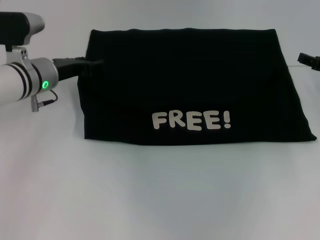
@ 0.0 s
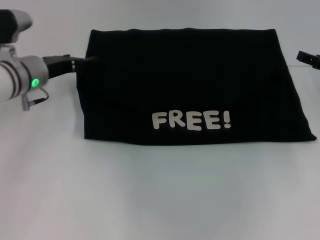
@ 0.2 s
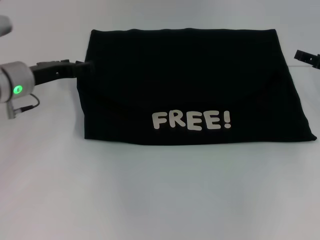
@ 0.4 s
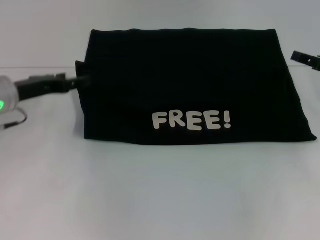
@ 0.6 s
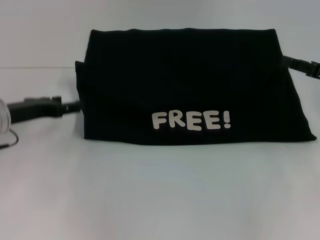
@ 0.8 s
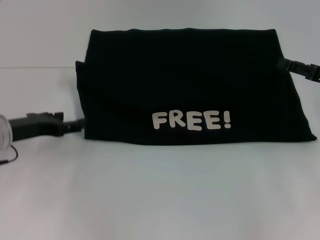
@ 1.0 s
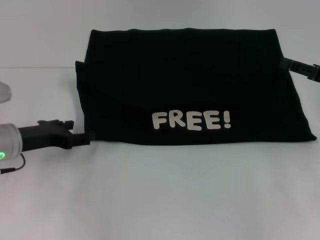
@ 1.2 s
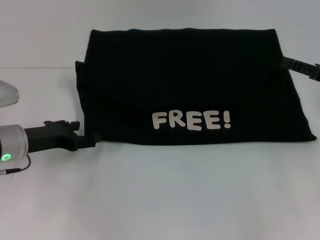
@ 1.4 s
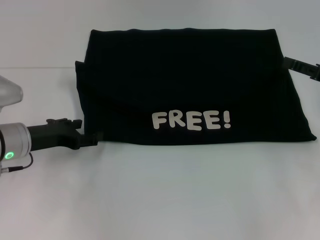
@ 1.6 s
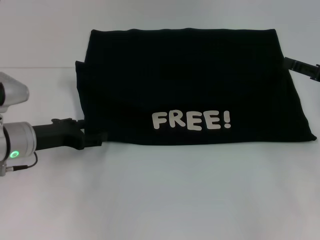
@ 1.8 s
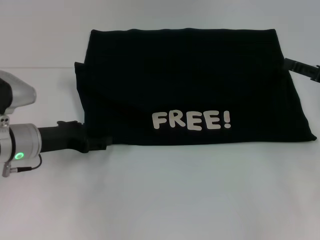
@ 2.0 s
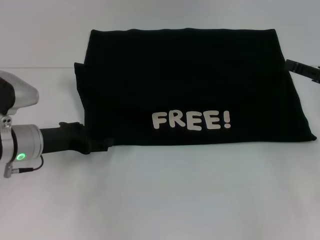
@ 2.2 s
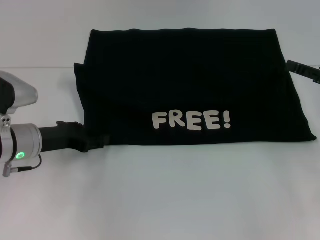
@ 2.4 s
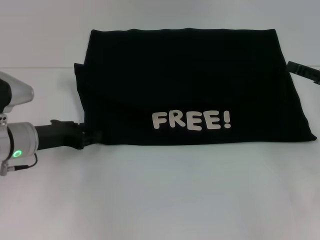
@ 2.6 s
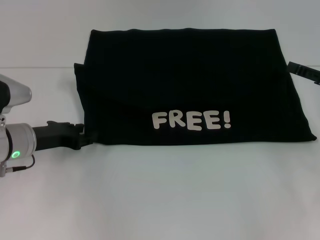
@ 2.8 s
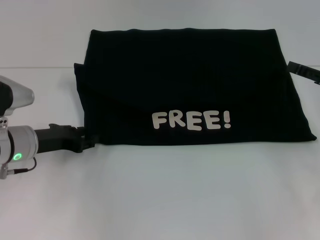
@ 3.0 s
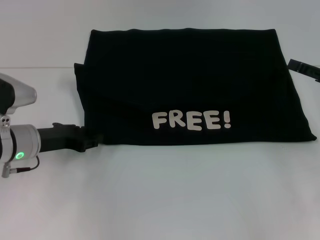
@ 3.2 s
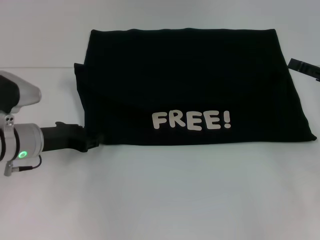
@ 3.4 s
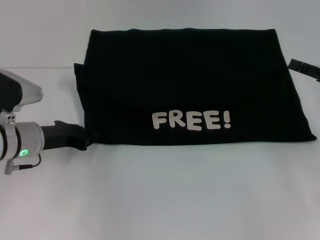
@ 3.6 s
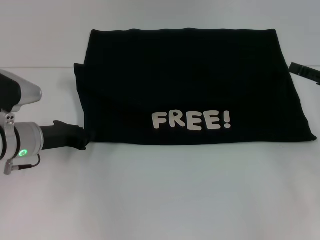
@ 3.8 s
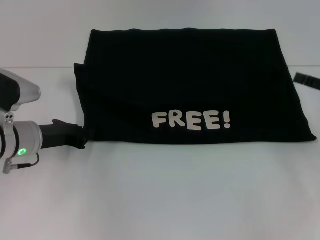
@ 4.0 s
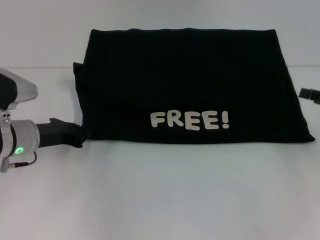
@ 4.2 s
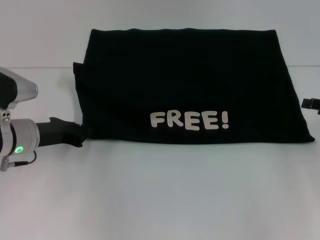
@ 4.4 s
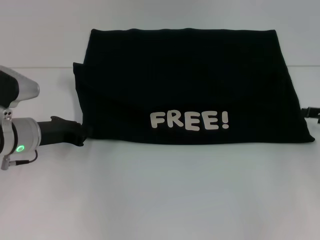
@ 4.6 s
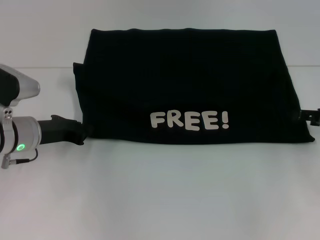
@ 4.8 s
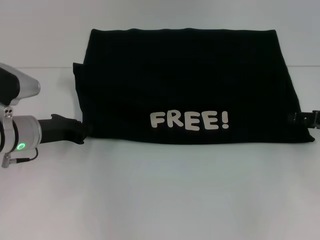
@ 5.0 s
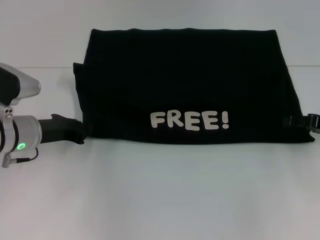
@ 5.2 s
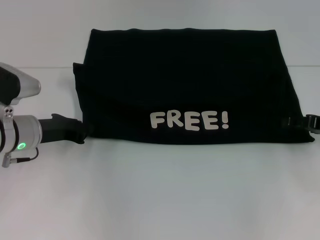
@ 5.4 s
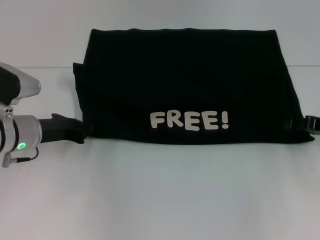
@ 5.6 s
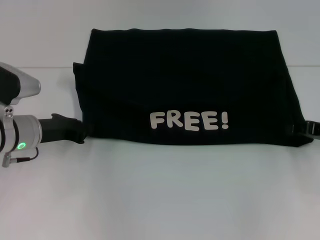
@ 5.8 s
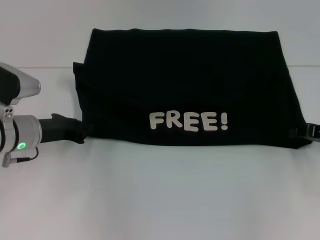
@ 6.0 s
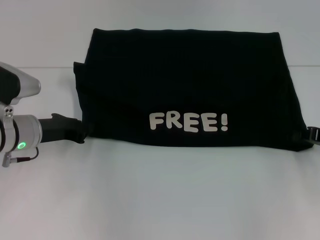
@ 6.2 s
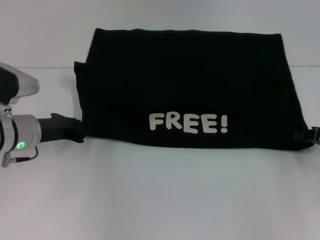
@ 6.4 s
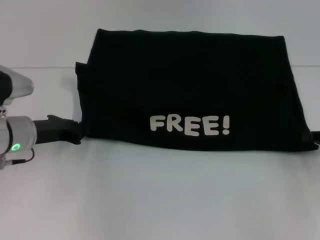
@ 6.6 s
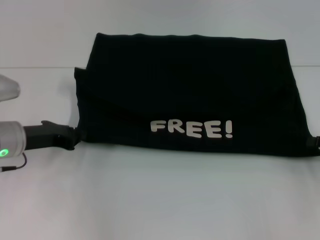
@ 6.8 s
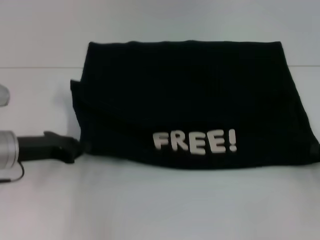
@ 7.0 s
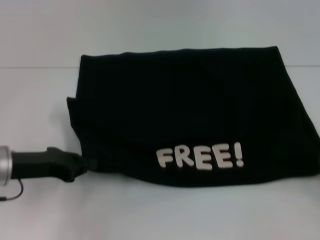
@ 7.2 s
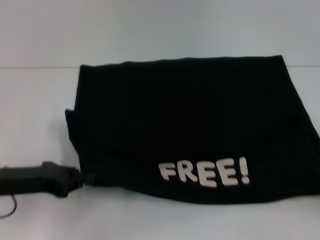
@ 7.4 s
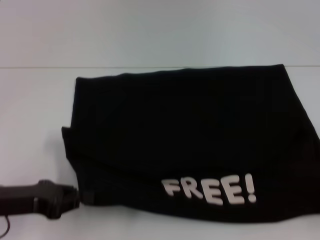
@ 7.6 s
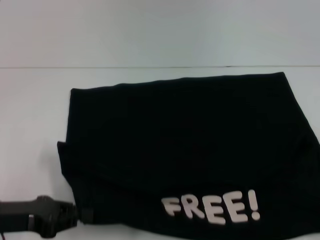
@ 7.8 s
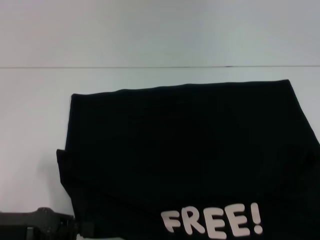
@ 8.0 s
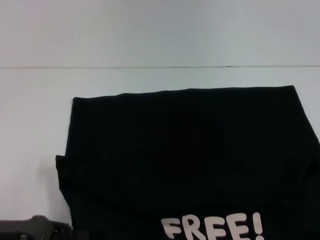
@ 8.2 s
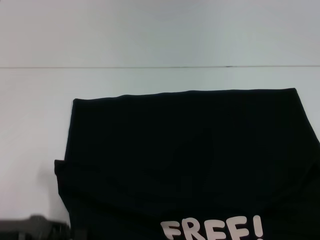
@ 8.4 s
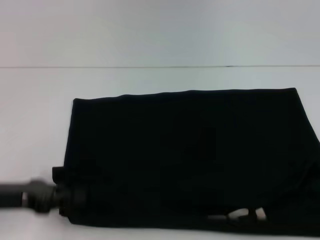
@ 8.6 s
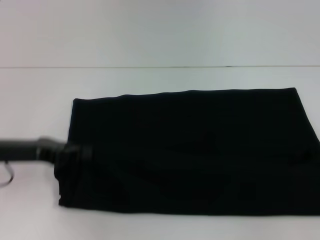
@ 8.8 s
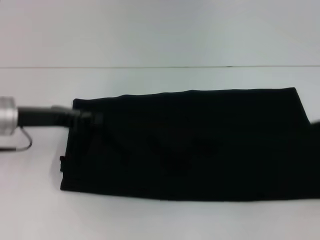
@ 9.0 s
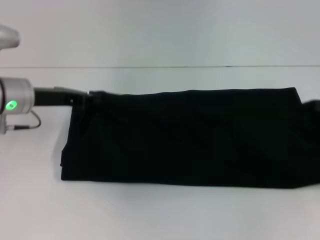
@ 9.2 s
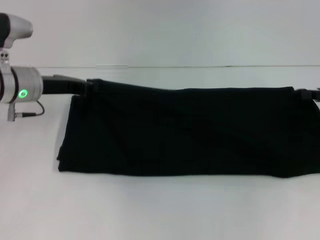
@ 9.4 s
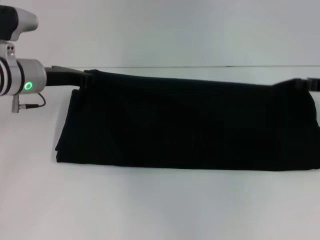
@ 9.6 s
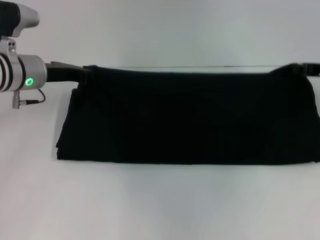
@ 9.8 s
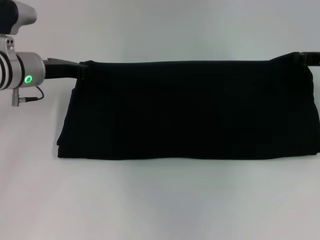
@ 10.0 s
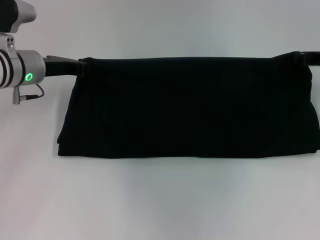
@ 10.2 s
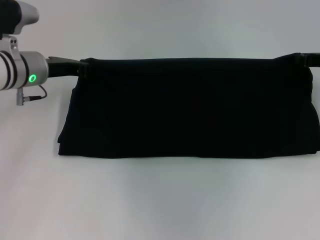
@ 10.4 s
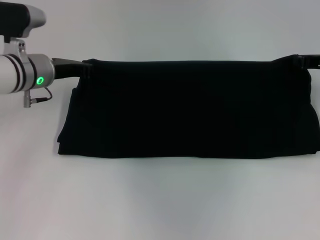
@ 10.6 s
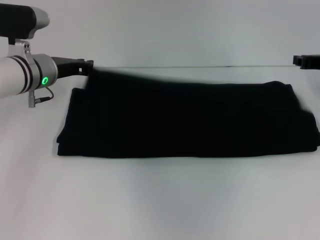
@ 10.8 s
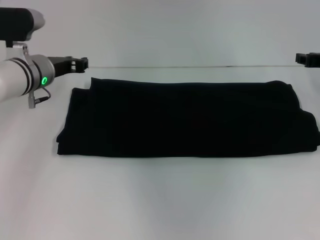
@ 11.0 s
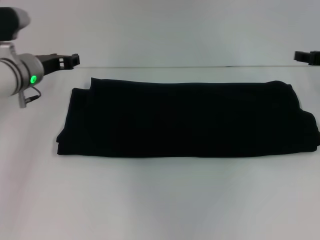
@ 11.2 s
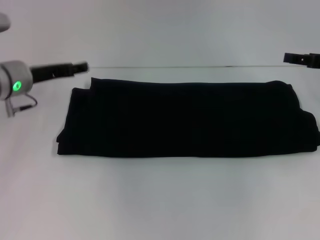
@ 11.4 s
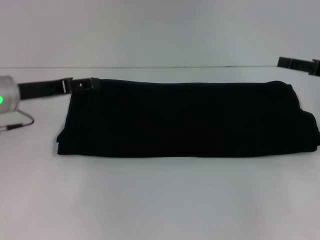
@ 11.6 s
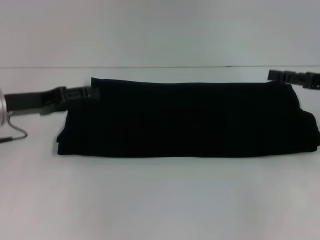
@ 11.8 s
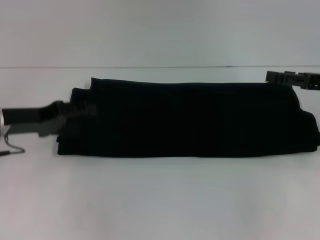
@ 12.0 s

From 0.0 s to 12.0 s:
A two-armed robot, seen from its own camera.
Step, from 0.2 s to 8.0 s: Pull the clothes with your left hand.
Step, from 0.2 s to 8.0 s: Pull the clothes with your right hand.
Step, from 8.2 s to 10.8 s: Fold the clothes with your right hand.
From 0.0 s to 1.6 s: The left gripper heads backward, covering some 10 cm, and opens up. The right gripper shifts some 5 cm backward.
From 1.6 s to 3.0 s: The left gripper closes.
From 3.0 s to 4.4 s: The left gripper closes its fingers.
From 4.4 s to 6.0 s: The right gripper closes up.
From 6.0 s to 7.6 s: The left gripper heads backward, covering some 10 cm; the right gripper is displaced backward and to the right by some 15 cm.
From 7.6 s to 9.0 s: Both grippers travel together forward, approximately 10 cm.
From 9.0 s to 10.4 s: The left gripper moves forward, approximately 10 cm. The right gripper is displaced forward and to the left by approximately 15 cm.
From 10.4 s to 12.0 s: The left gripper heads backward and to the left, covering some 10 cm, and opens its fingers. The right gripper goes roughly 5 cm backward, and opens its fingers.

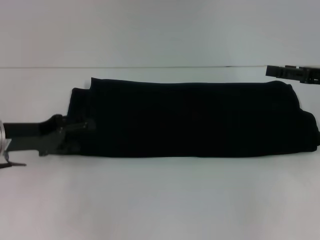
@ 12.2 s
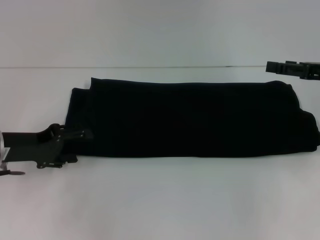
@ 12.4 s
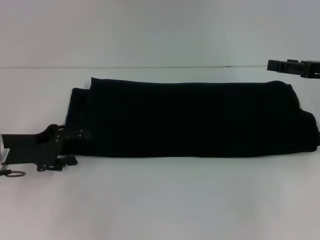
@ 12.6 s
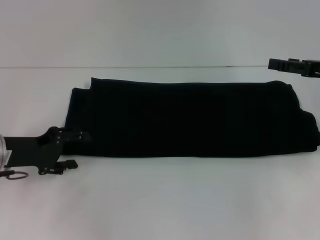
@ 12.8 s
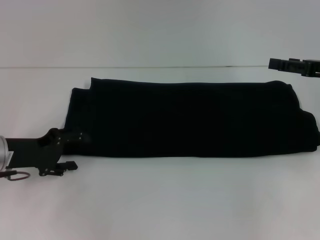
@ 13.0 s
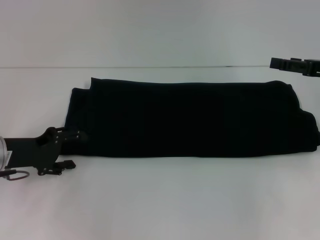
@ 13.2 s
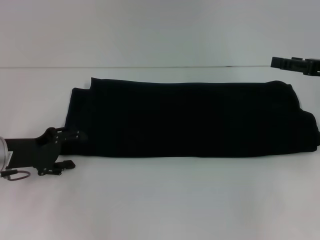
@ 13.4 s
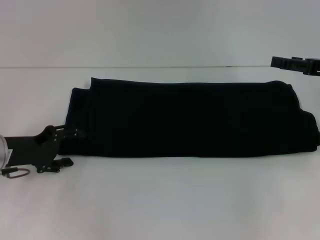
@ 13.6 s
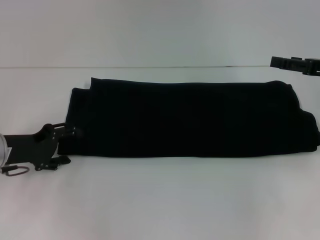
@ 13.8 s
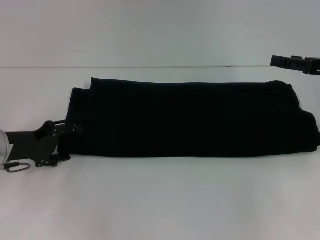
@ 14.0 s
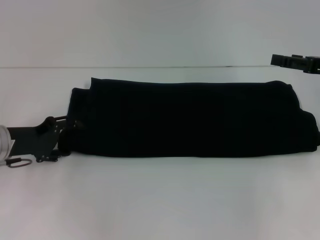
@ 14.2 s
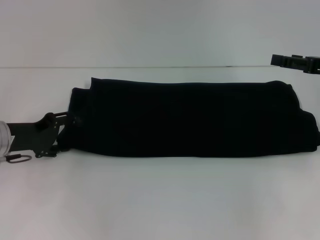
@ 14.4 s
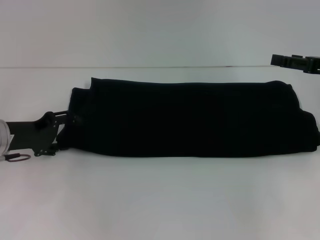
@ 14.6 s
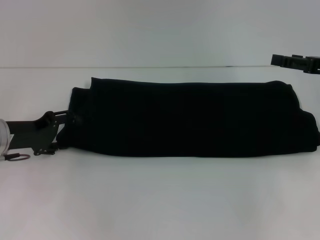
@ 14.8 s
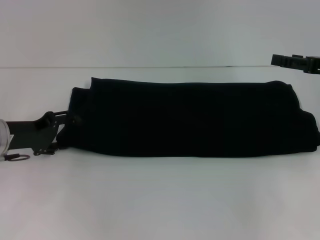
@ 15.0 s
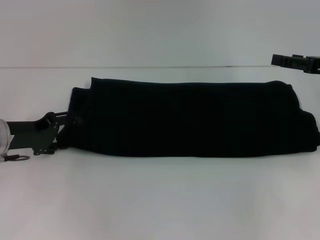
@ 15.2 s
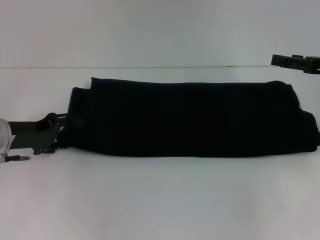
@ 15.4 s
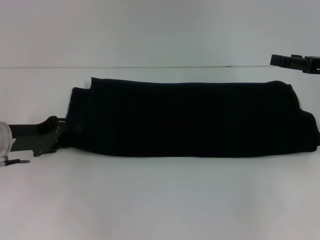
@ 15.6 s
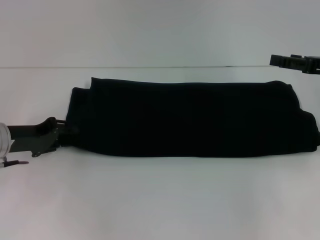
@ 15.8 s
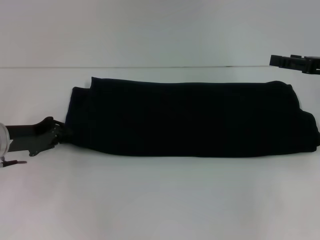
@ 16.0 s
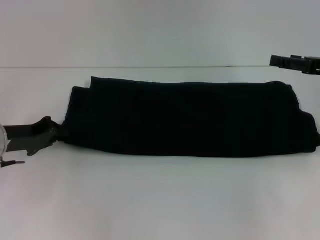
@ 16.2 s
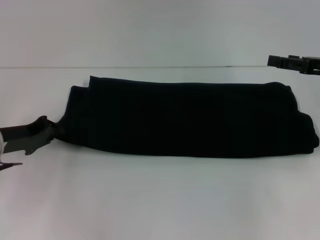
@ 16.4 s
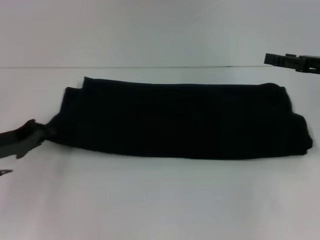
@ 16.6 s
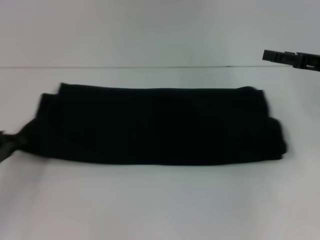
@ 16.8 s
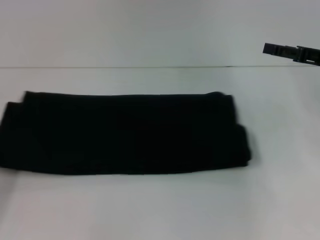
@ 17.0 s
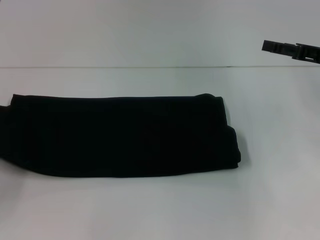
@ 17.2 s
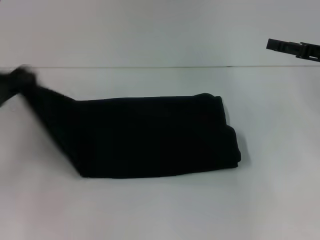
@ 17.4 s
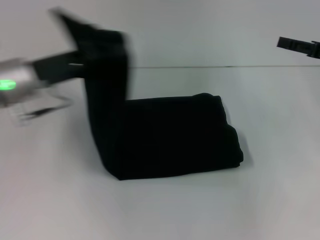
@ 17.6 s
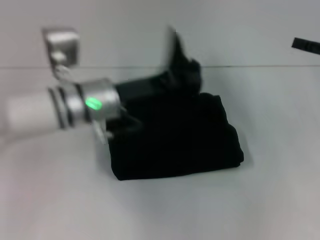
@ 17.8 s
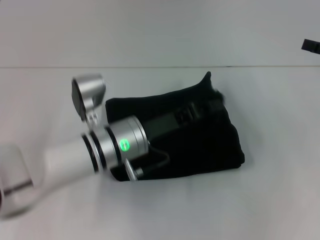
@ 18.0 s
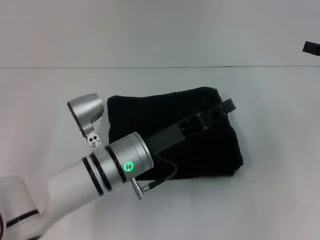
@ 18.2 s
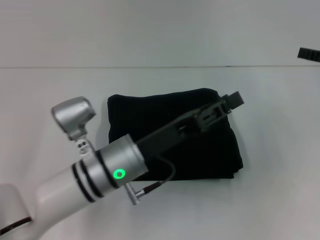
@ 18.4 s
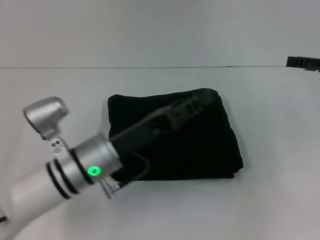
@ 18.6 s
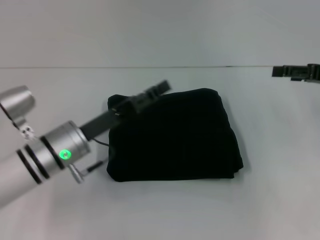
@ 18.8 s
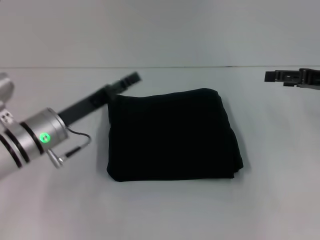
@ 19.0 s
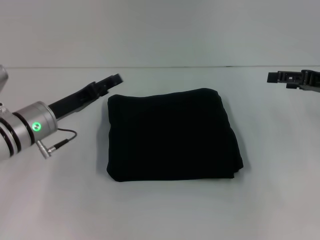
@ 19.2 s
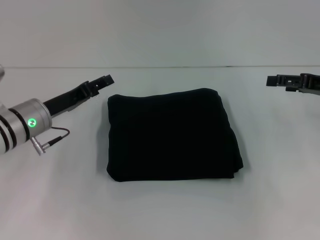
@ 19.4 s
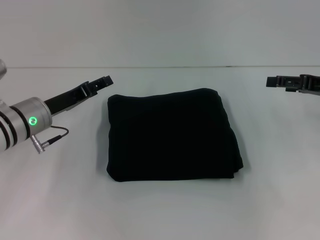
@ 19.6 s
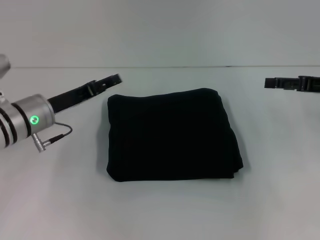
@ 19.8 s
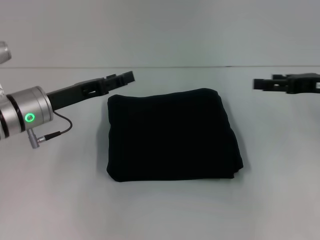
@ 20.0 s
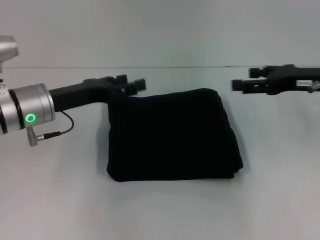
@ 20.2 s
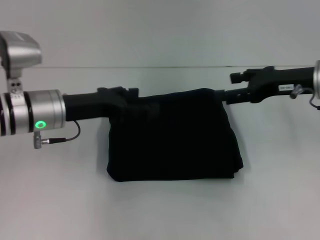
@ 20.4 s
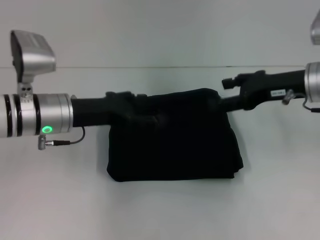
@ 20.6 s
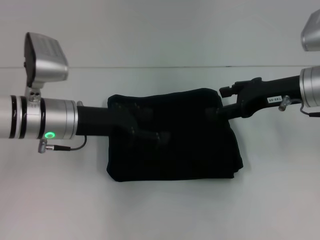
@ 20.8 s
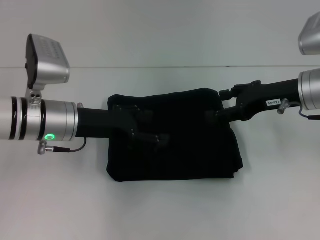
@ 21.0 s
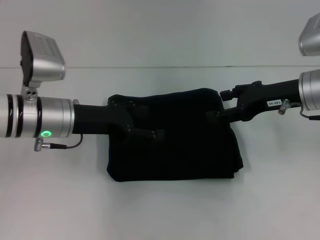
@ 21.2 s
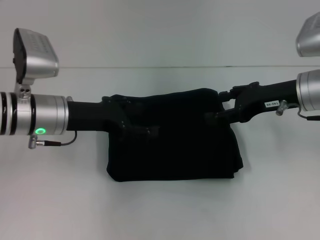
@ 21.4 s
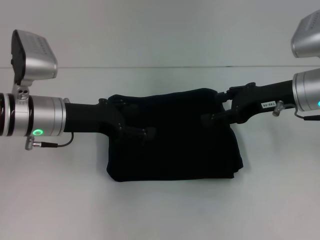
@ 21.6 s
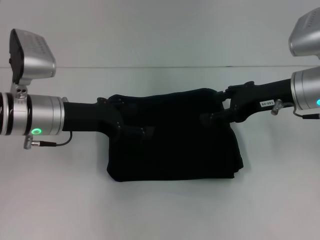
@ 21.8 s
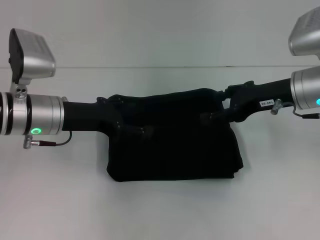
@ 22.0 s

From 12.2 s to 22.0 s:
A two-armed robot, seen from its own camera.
Step, from 12.2 s to 18.6 s: Fold the clothes with your left hand.
From 13.6 s to 15.0 s: The grippers stay close to where they were, moving slightly.
From 15.0 s to 16.4 s: The left gripper closes its fingers.
From 16.4 s to 17.8 s: The left gripper shifts approximately 15 cm to the right.
From 17.8 s to 19.2 s: The left gripper goes approximately 10 cm to the left and downward, and opens.
From 19.2 s to 20.6 s: The right gripper shifts approximately 10 cm to the left. The left gripper heads upward, covering approximately 5 cm.
From 20.6 s to 22.0 s: There are only small adjustments of the grippers.
